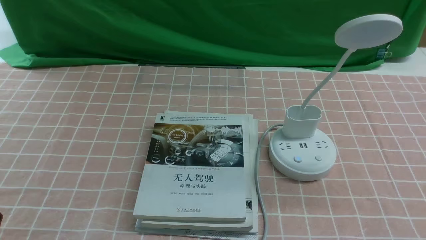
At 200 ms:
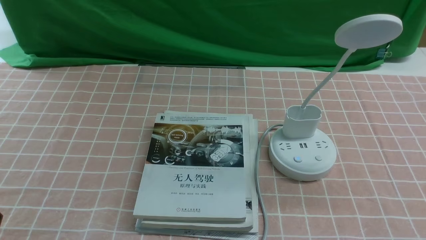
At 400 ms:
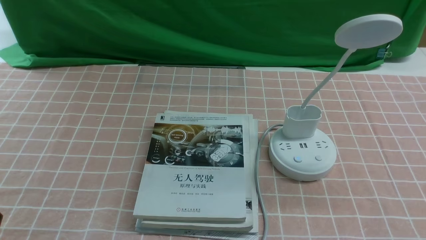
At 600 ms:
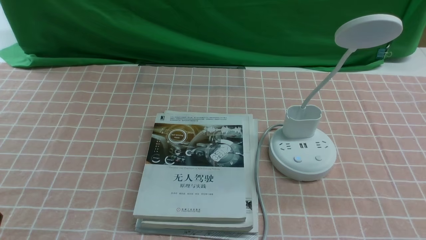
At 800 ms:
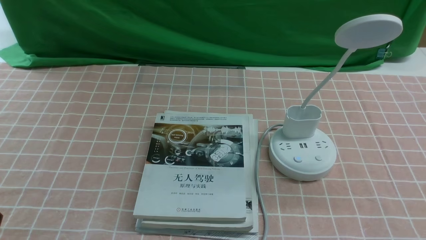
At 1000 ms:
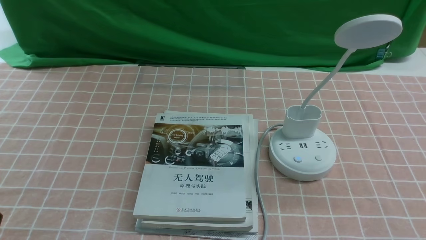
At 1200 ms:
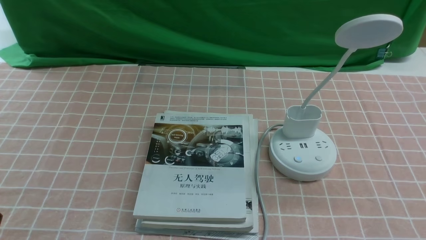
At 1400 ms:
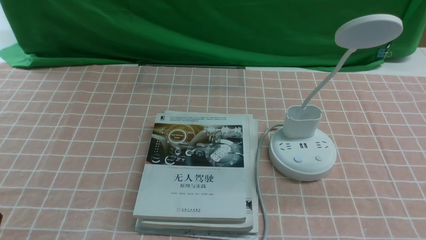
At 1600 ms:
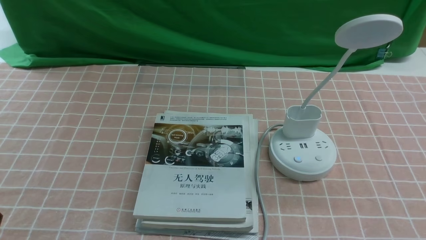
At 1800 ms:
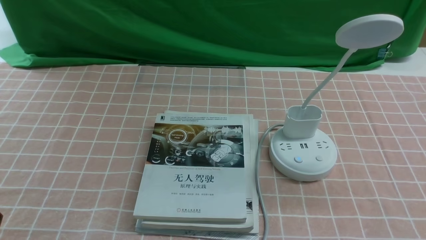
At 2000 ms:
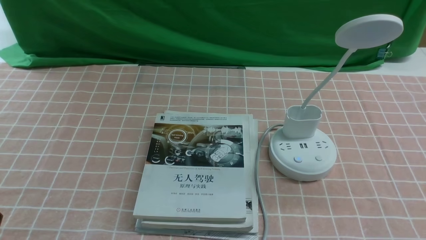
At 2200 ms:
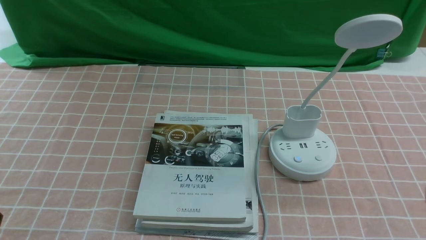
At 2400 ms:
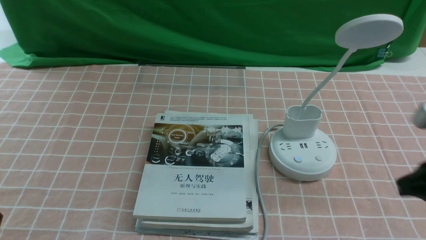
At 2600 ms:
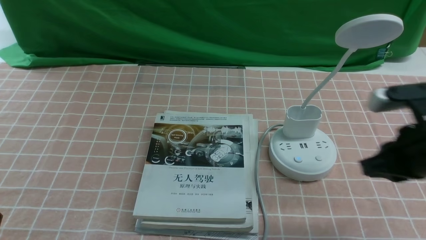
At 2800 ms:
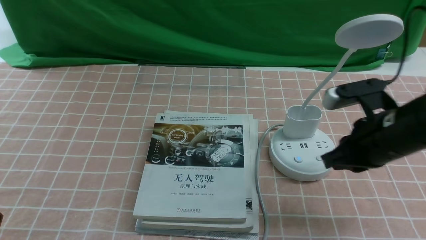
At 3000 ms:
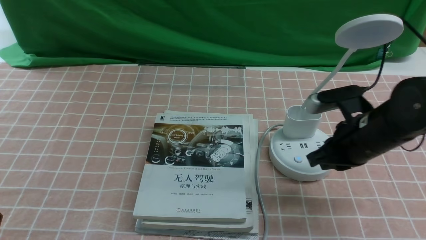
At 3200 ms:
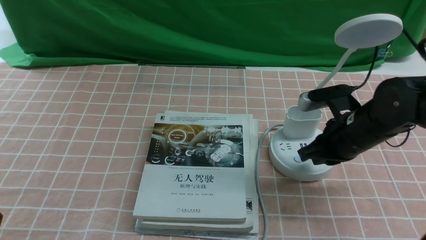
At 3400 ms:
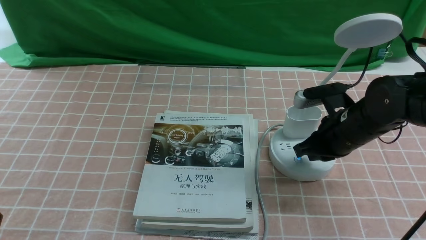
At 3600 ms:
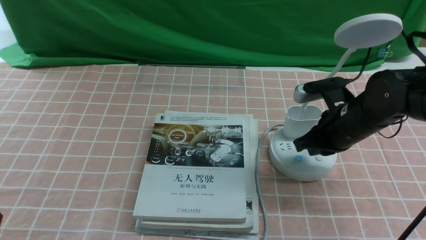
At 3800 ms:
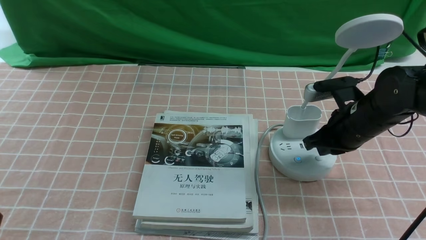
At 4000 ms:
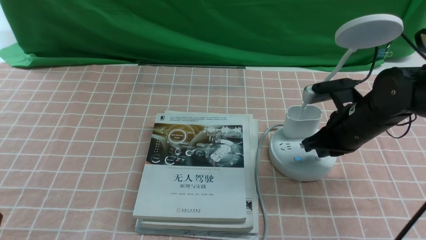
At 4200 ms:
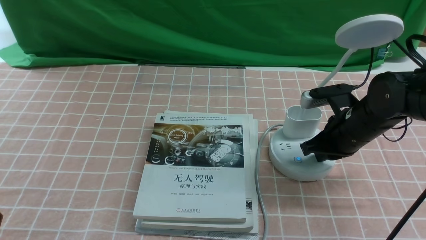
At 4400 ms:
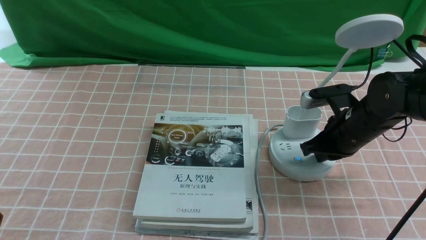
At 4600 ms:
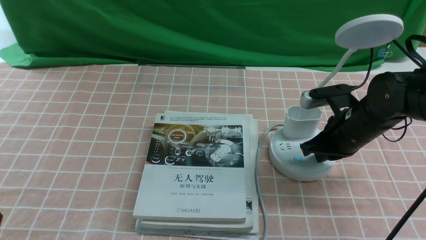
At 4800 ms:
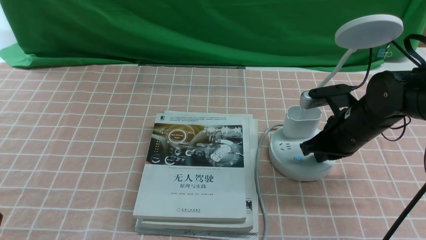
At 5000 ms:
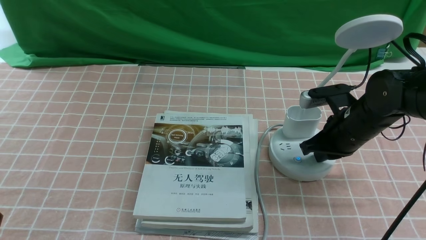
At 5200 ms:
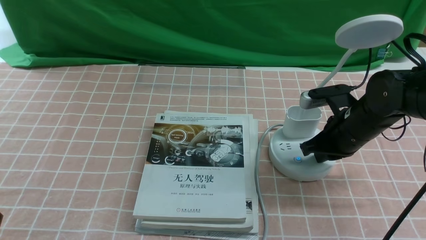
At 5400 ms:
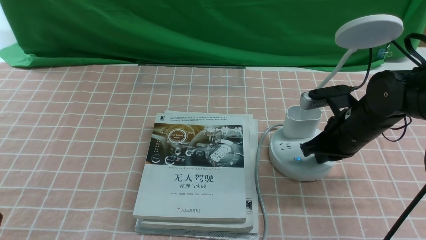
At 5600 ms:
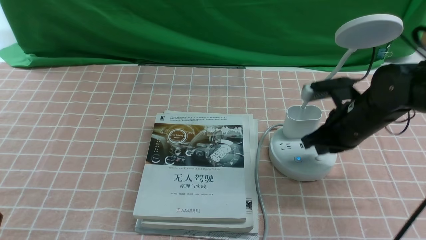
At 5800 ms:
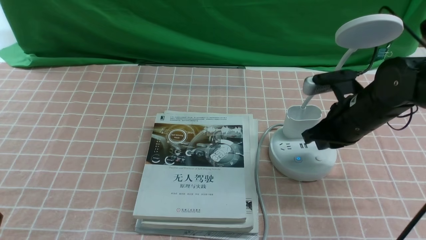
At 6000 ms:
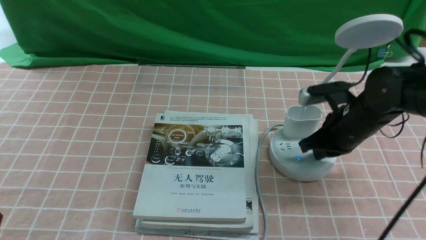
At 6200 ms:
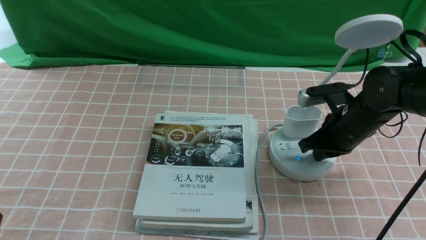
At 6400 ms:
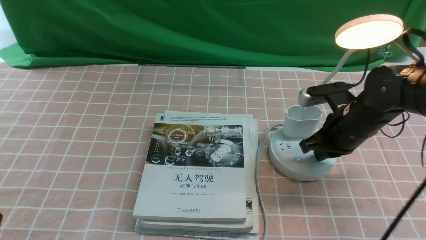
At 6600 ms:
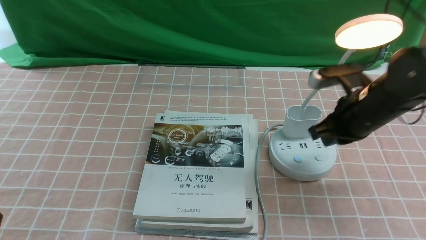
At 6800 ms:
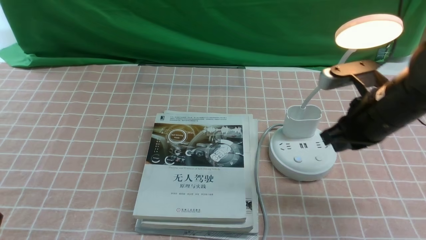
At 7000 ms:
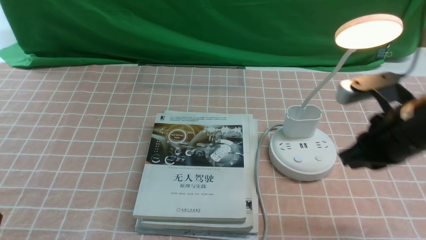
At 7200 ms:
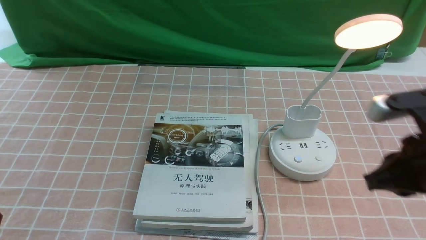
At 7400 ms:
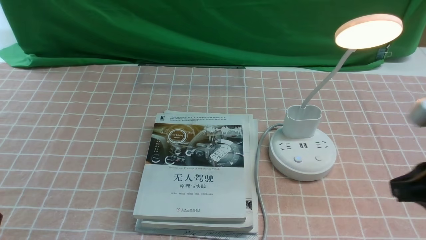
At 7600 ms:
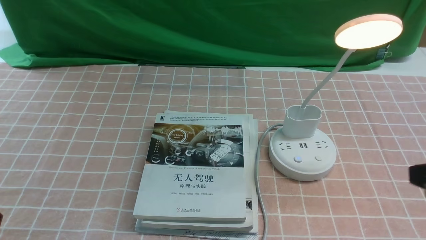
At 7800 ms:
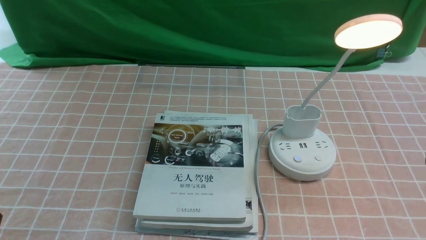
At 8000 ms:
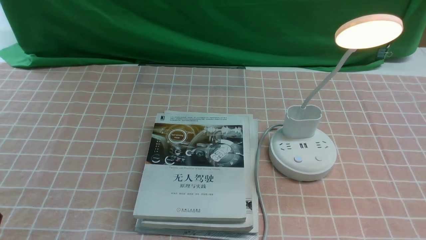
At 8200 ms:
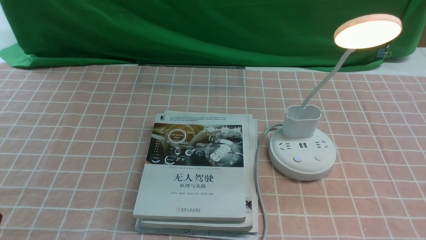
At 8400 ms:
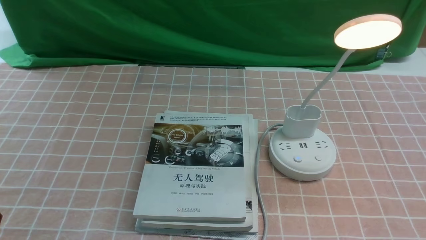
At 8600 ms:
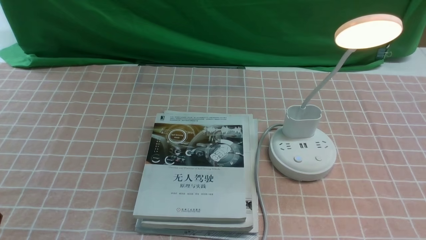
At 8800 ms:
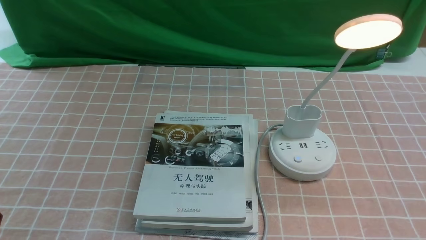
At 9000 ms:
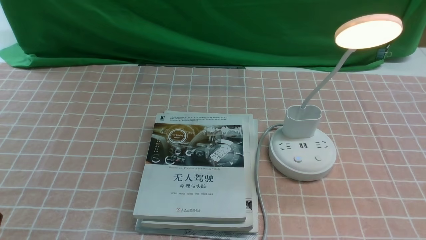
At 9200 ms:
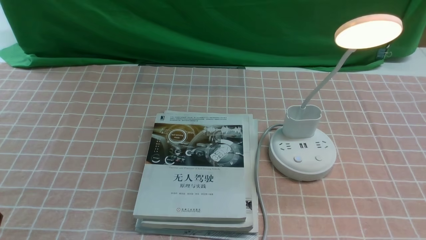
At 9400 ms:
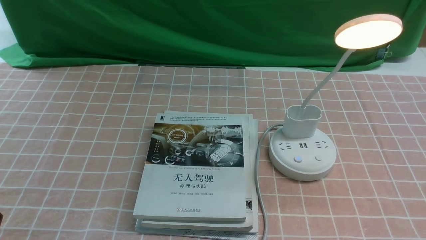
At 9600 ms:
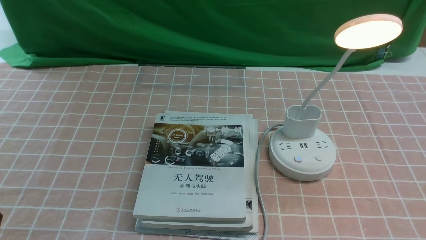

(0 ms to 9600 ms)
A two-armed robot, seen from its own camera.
Step, 0 ms - 6600 ms: use the right arm to press the button switch on the lamp holder.
1600 ms - 3200 ms: The right gripper travels forward and to the left by some 30 cm, and closes its fingers.
3200 ms - 6400 ms: There are only small adjustments of the grippers.
6400 ms - 8000 ms: The right gripper heads backward, covering approximately 25 cm.

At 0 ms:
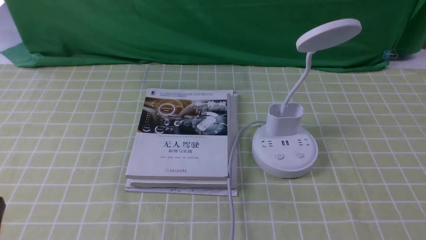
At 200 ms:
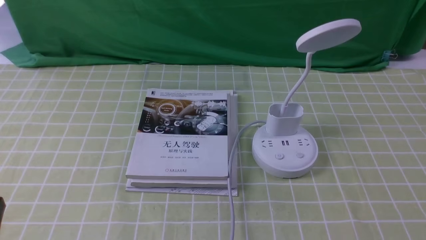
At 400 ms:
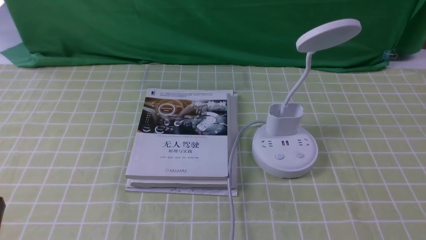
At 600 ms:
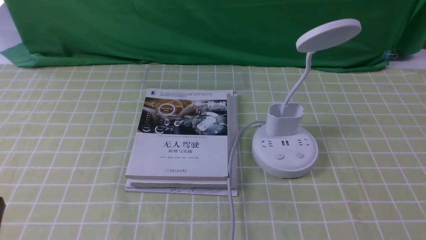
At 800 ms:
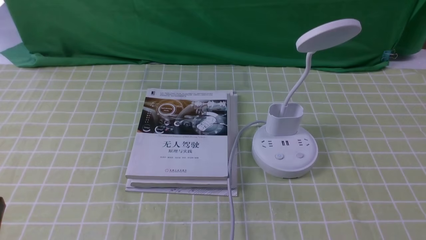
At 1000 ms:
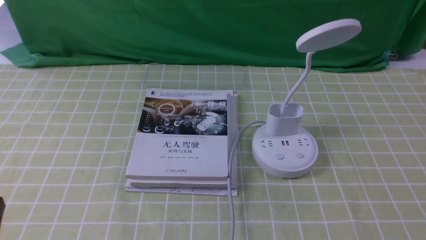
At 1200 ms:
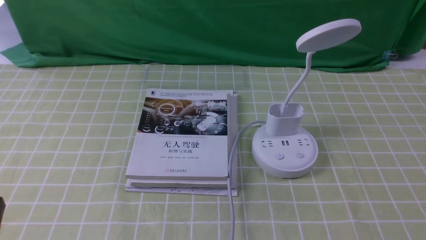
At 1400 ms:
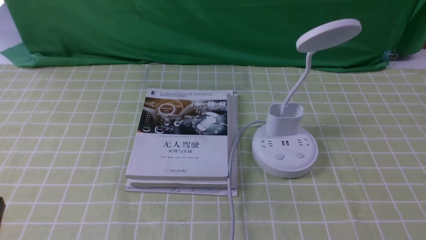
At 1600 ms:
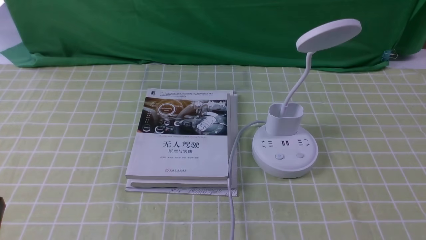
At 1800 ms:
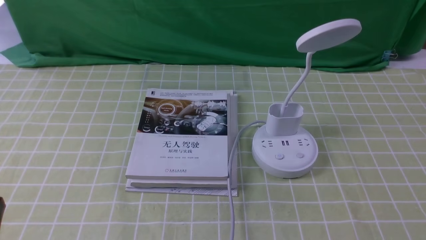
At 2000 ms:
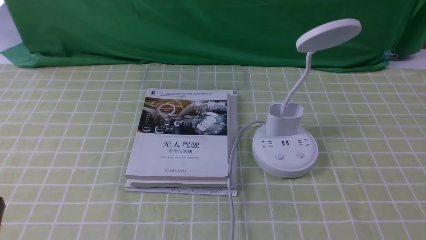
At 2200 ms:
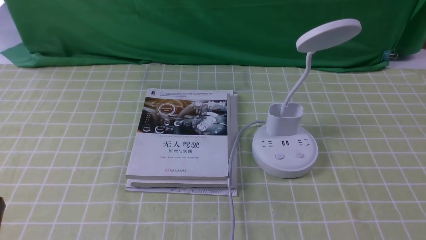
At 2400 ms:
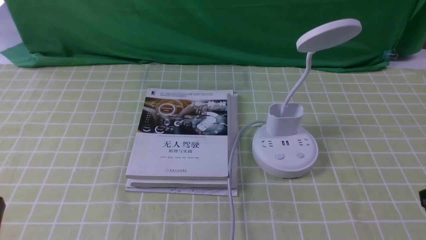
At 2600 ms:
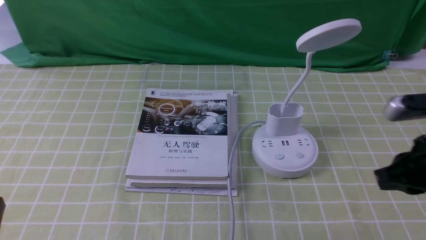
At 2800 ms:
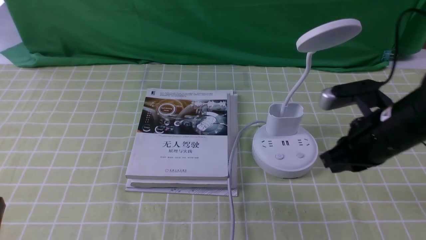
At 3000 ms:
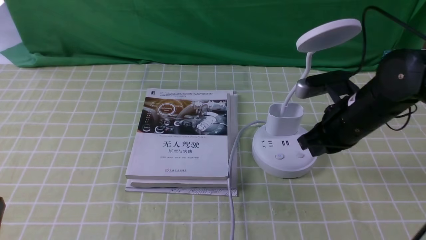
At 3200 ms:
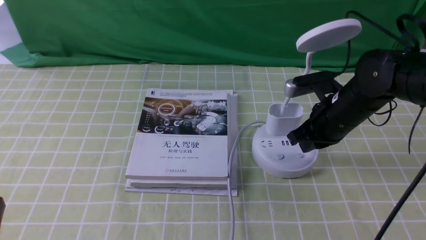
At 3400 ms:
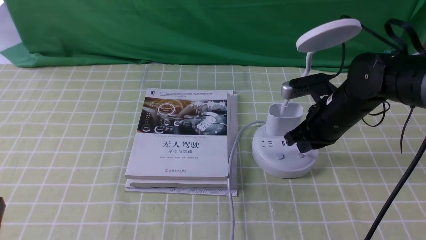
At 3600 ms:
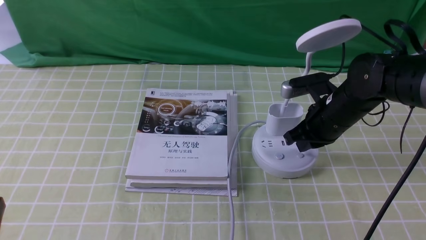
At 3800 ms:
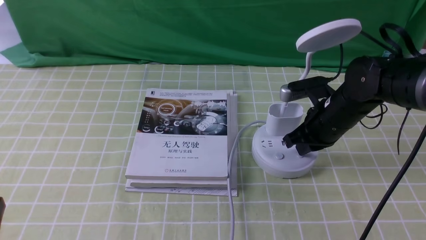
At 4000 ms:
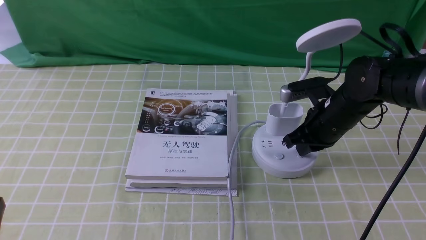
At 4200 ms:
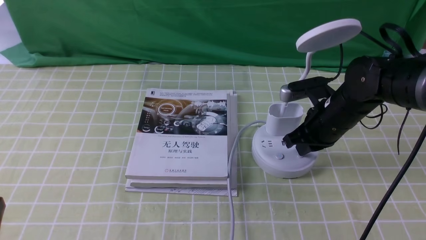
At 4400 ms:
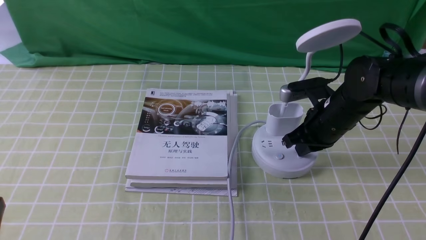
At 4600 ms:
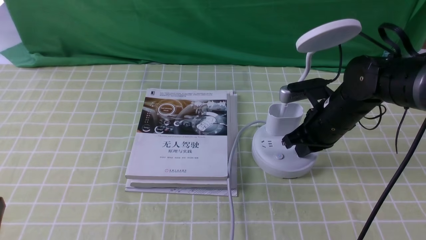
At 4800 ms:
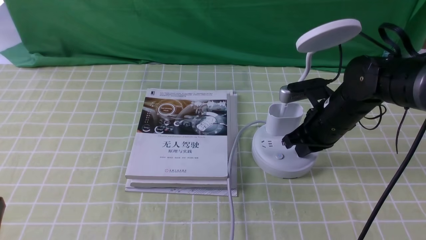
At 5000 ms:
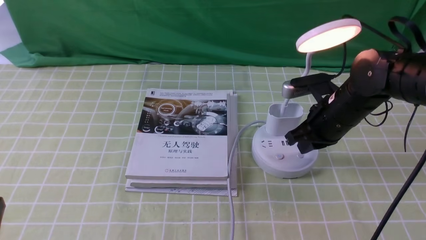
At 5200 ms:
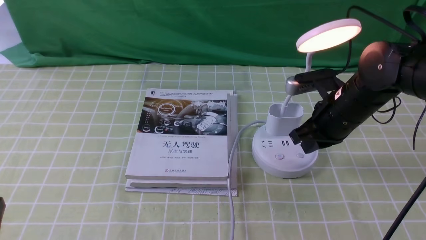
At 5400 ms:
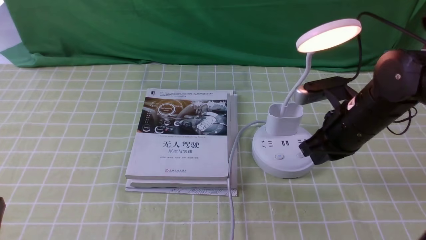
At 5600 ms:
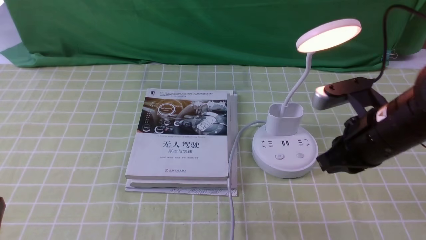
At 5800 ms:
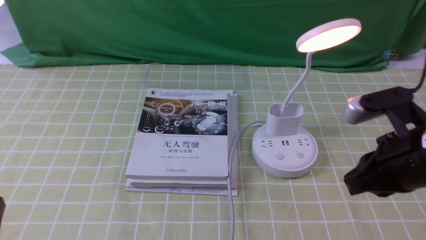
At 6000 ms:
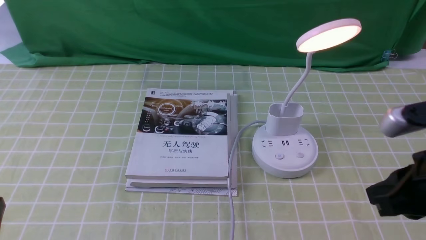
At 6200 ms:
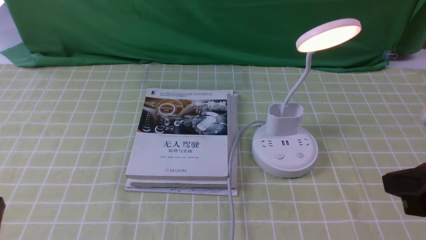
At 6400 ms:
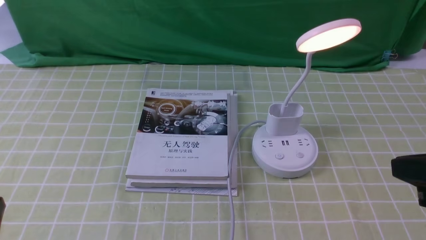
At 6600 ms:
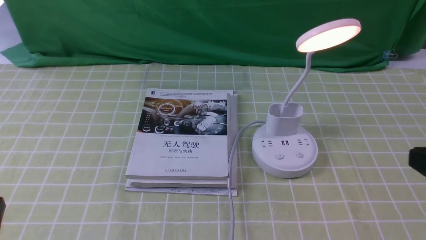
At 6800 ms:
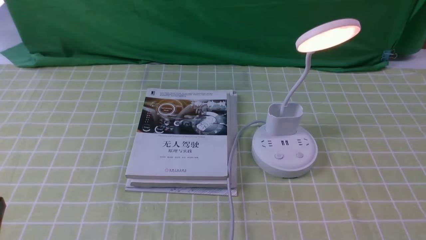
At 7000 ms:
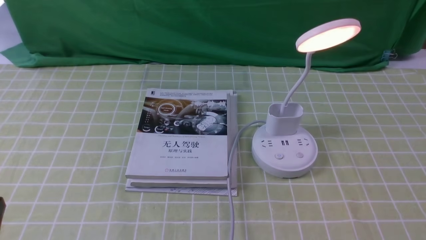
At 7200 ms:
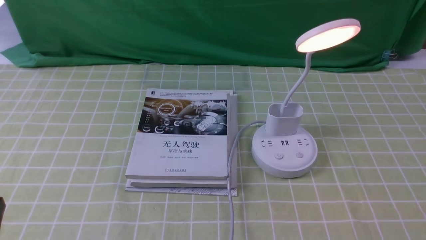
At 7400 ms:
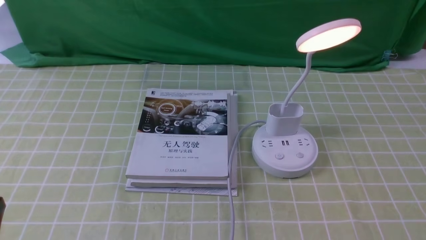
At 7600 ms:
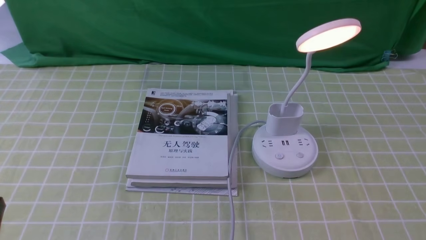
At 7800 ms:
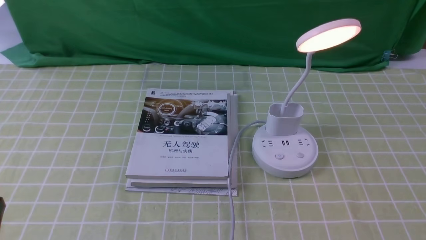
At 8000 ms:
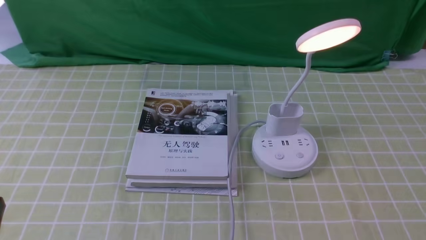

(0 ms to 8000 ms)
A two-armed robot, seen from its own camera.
Step, 0 ms - 5200 ms: use the right arm to press the button switch on the lamp holder.
1600 ms - 3200 ms: The right gripper heads forward and to the left, covering approximately 30 cm, and closes its fingers.
3200 ms - 4800 ms: The grippers move only a little.
4800 ms - 6400 ms: The right gripper shifts some 25 cm backward and upward.
6400 ms - 8000 ms: The right gripper is displaced downward and backward by some 15 cm.
